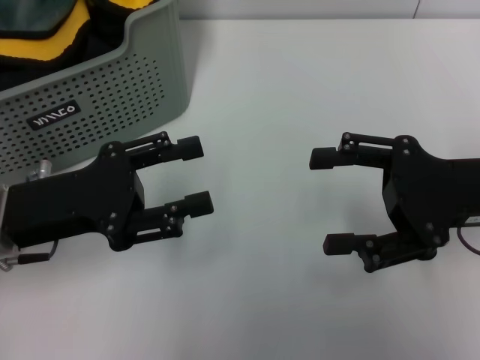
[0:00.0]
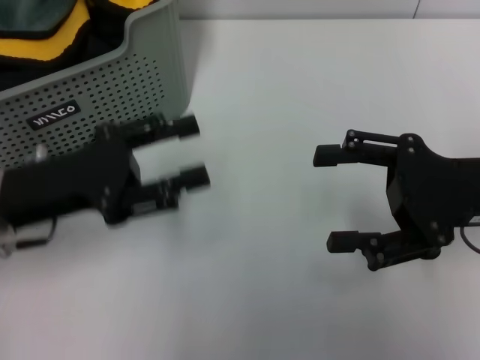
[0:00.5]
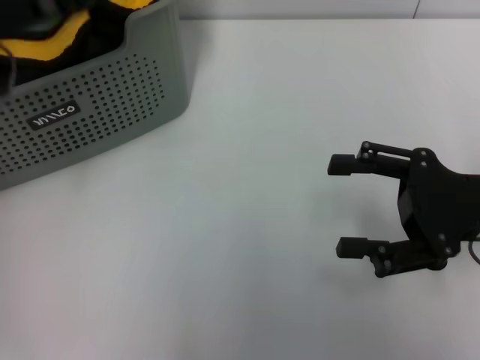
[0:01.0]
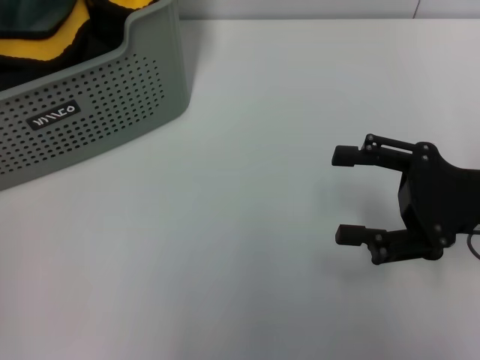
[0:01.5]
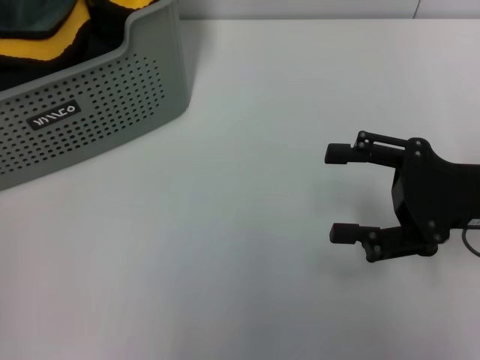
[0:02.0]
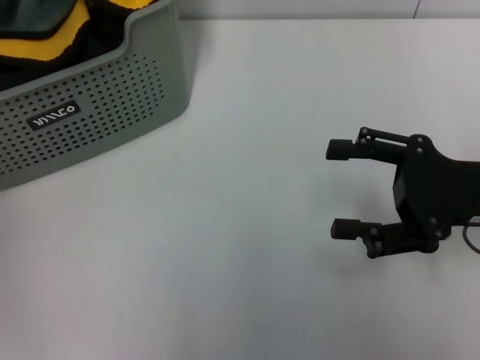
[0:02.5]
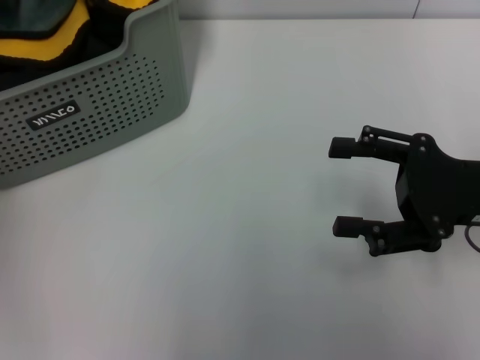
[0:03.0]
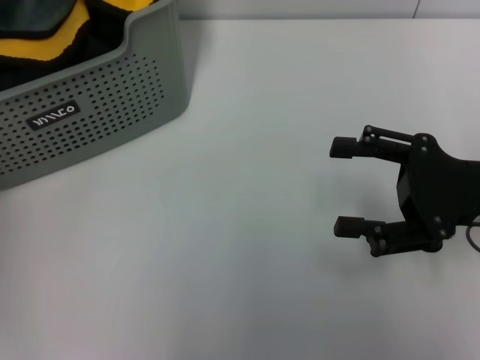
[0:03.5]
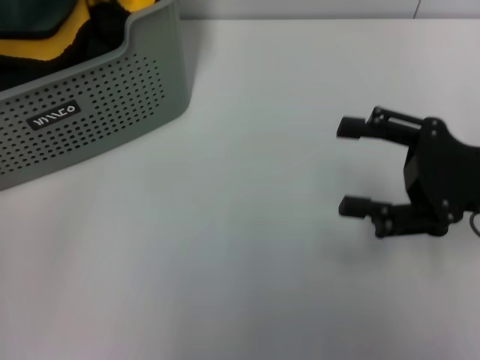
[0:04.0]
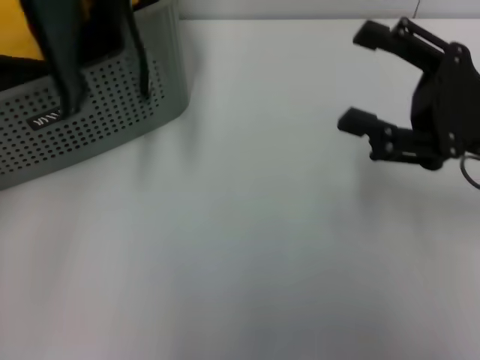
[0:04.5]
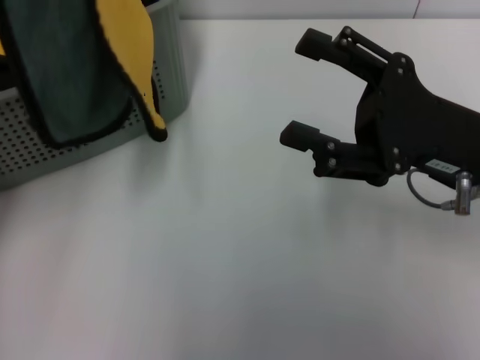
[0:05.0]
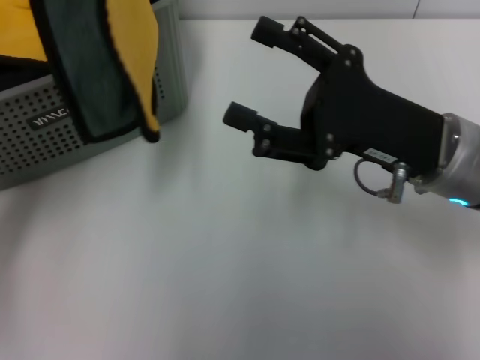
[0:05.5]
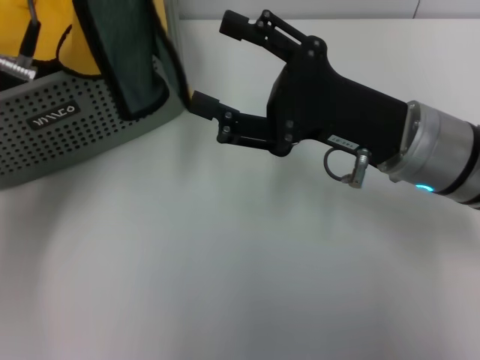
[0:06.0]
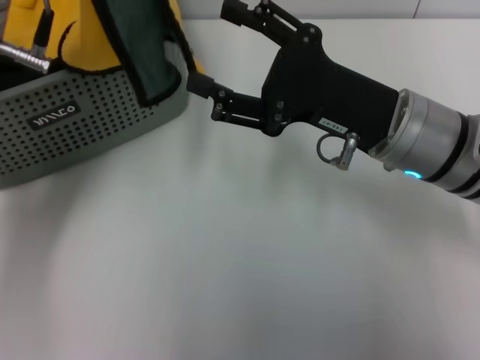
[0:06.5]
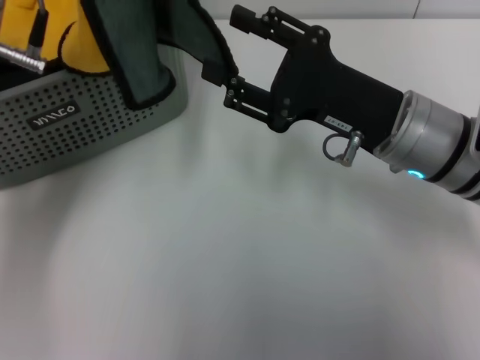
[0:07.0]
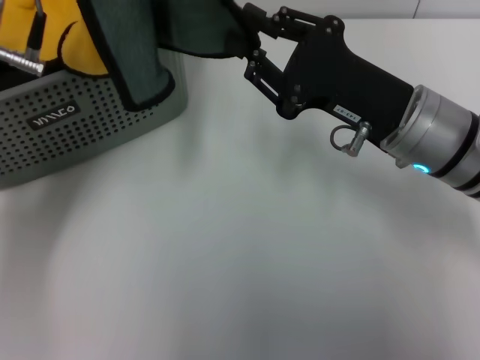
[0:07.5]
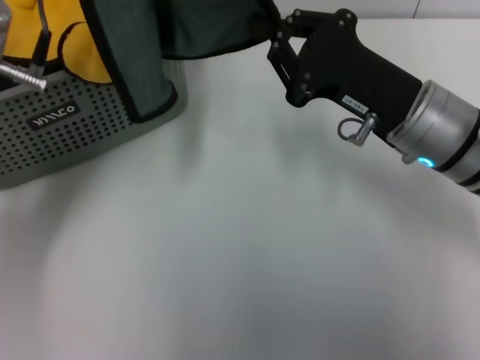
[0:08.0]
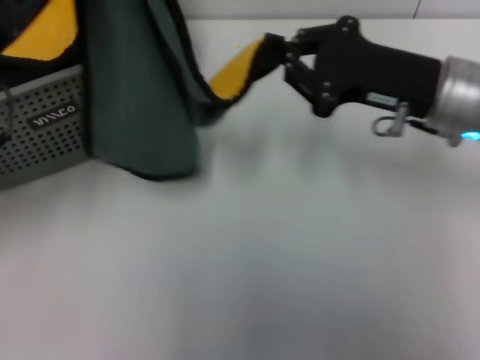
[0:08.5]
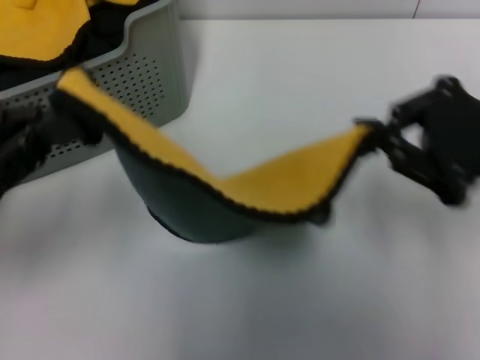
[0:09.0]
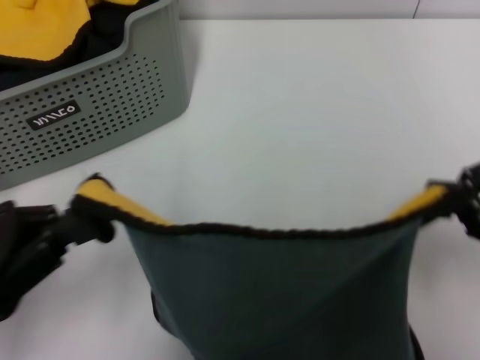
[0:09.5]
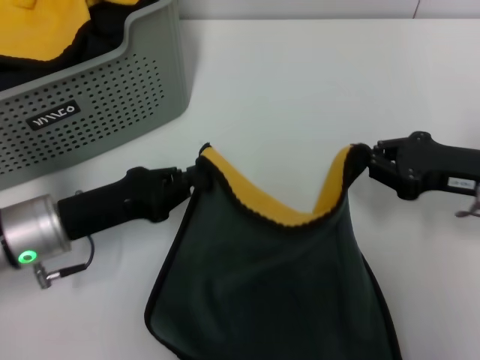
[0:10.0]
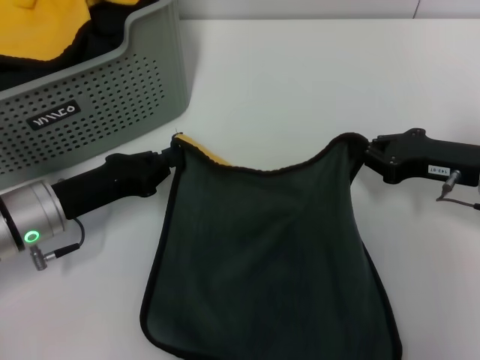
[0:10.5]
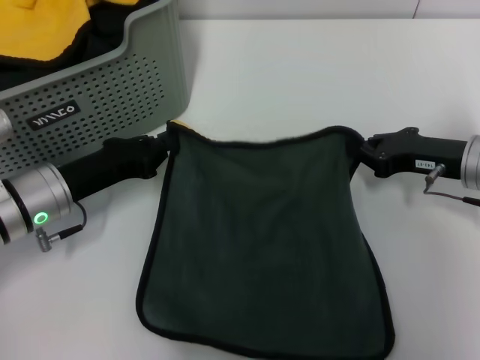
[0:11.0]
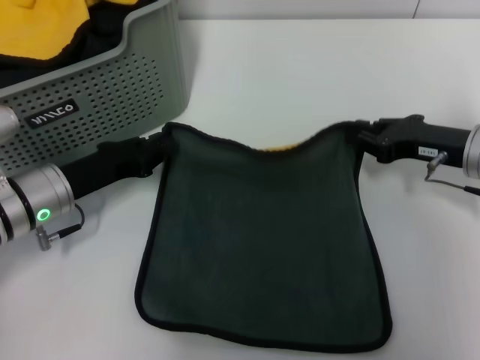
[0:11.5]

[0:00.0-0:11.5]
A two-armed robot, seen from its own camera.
Task of the whole recording: pick up the towel from the storage box and lay it flat on the table.
Step, 0:00.0 to 0:03.5: Pick up a towel with the left gripper.
Step, 0:04.5 to 0:07.5: Spread the towel flat with the left gripper.
0:00.0 to 0:02.0: The left gripper goes some 20 cm upward, forward and to the left.
0:04.0 to 0:06.0: The right gripper is displaced to the left by roughly 10 cm; the left gripper goes some 10 cm to the right.
0:06.0 to 0:07.5: The grippers stay close to where they were, moving slightly.
0:07.5 to 0:09.5: The right gripper is displaced to the right and backward by roughly 15 cm, and closes up. The left gripper travels backward, to the left and downward by some 20 cm.
0:09.5 to 0:11.5: Both grippers travel together forward and downward, roughly 15 cm.

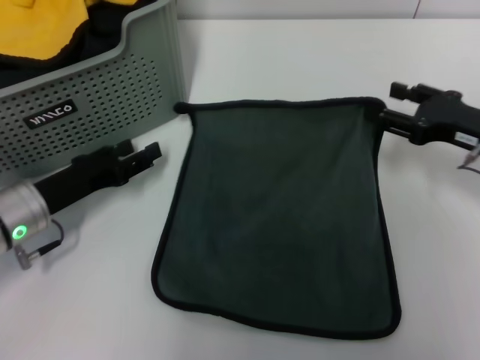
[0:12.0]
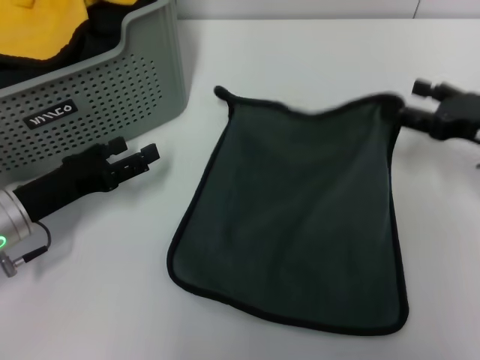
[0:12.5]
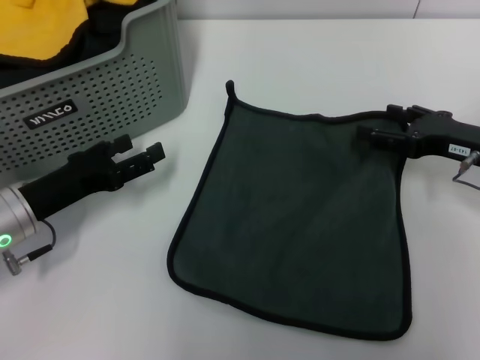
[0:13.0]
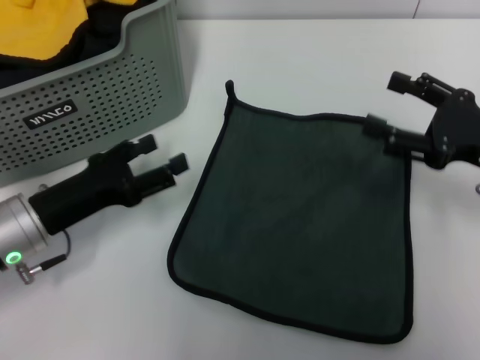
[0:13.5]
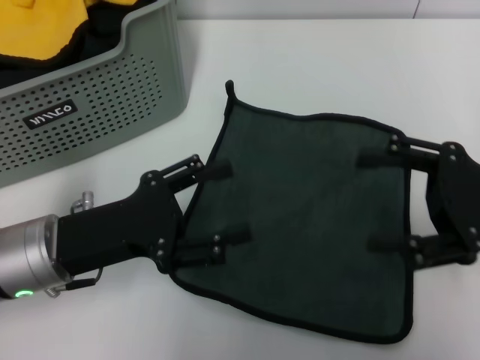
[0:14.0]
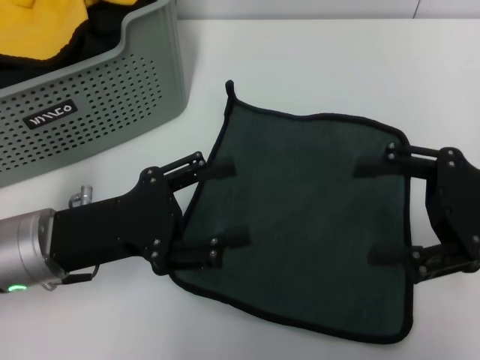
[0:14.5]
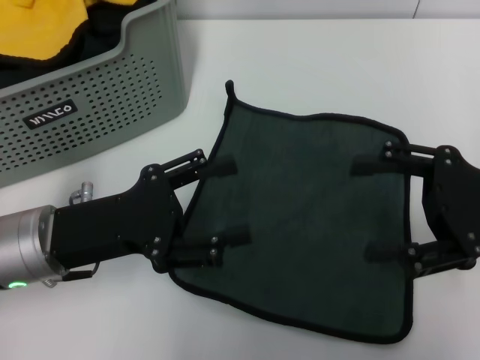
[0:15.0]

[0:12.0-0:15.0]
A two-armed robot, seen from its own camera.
Task of the whole recording: pick up the towel from the storage box and lay it flat on the table.
0:12.0 to 0:13.5: The right gripper opens up.
0:13.5 to 0:15.0: The left gripper ends up approximately 5 cm from where it was.

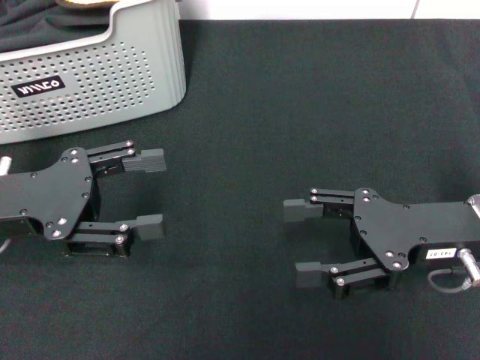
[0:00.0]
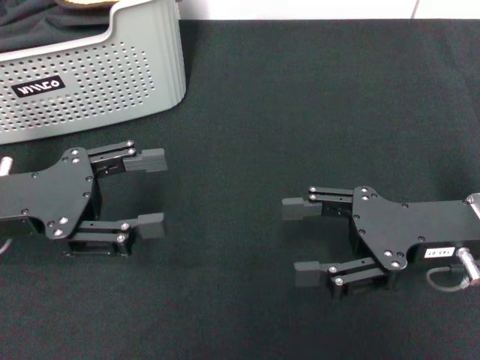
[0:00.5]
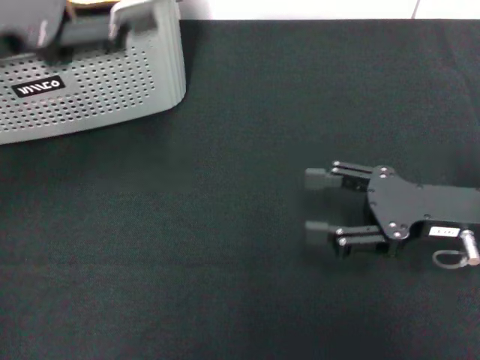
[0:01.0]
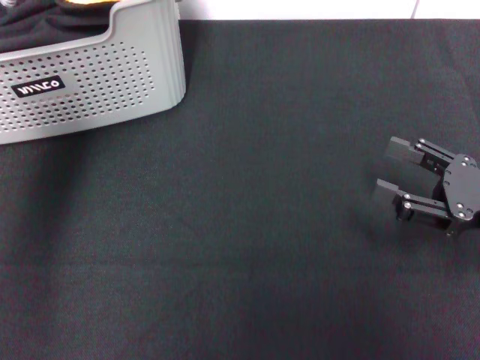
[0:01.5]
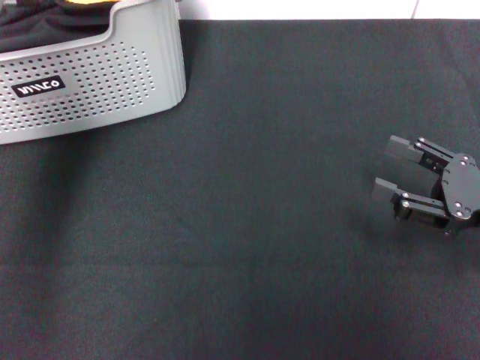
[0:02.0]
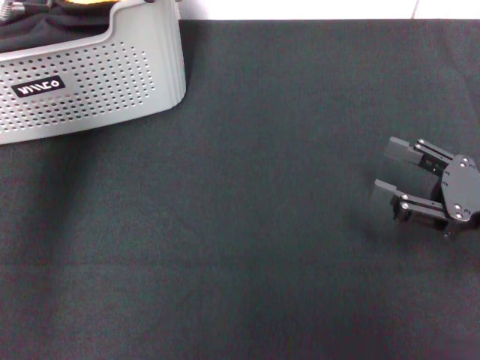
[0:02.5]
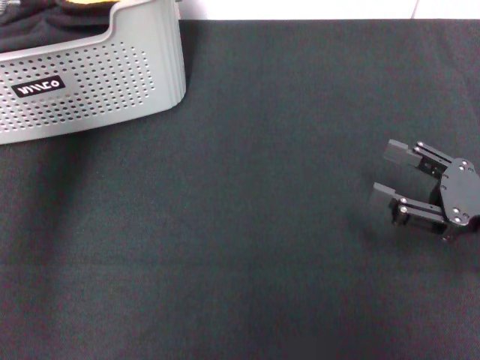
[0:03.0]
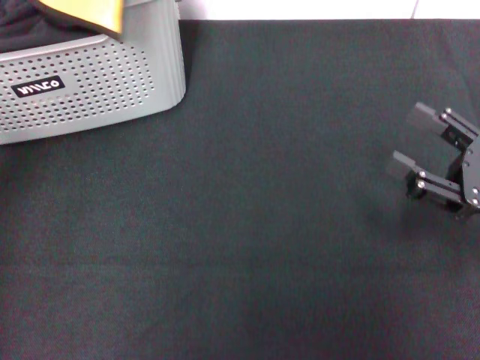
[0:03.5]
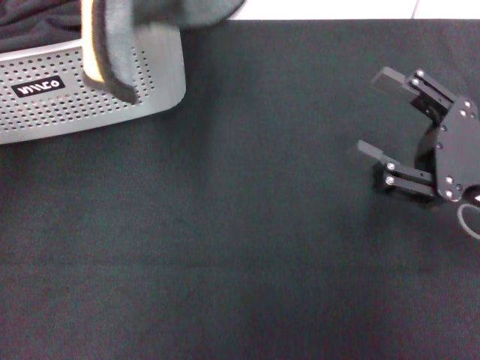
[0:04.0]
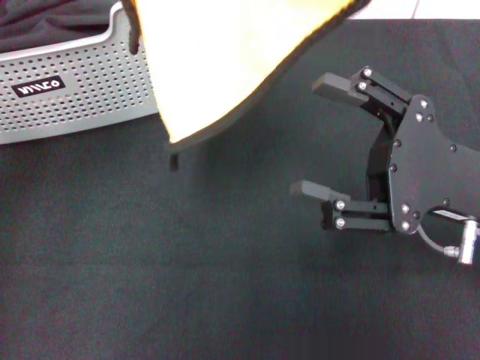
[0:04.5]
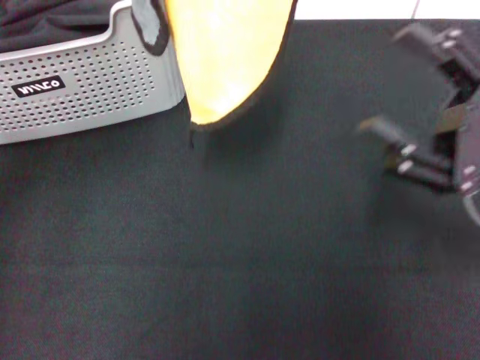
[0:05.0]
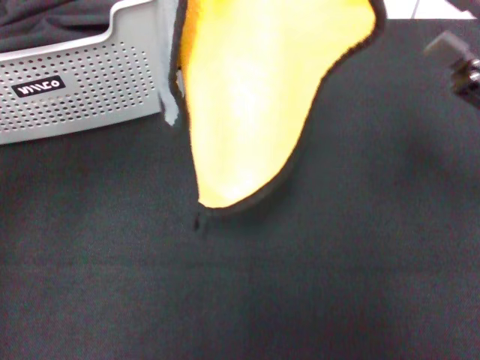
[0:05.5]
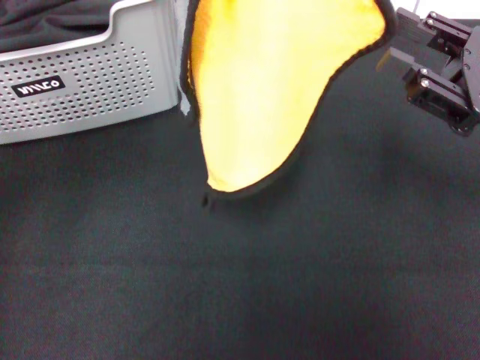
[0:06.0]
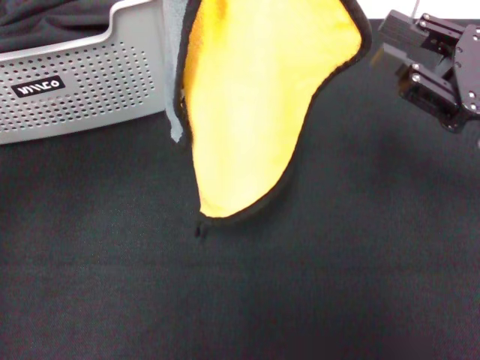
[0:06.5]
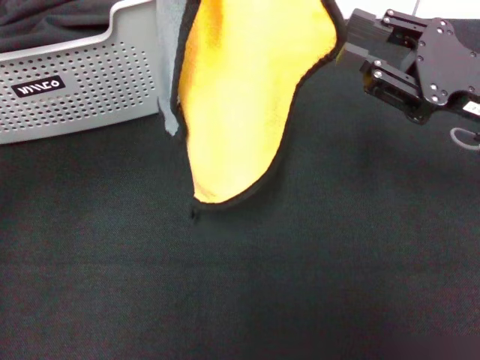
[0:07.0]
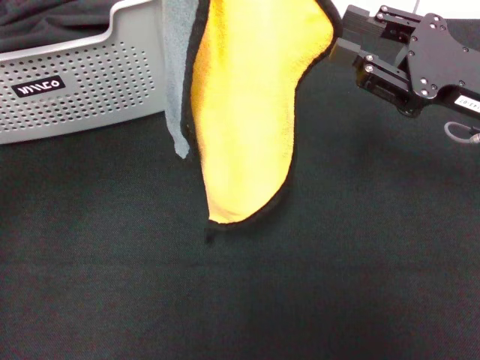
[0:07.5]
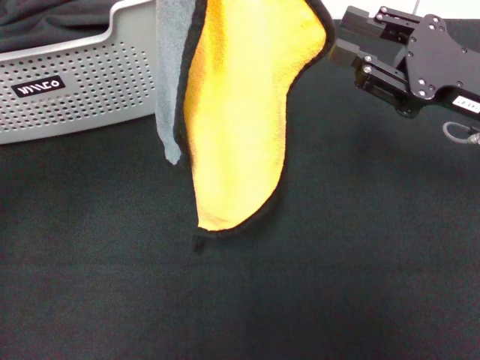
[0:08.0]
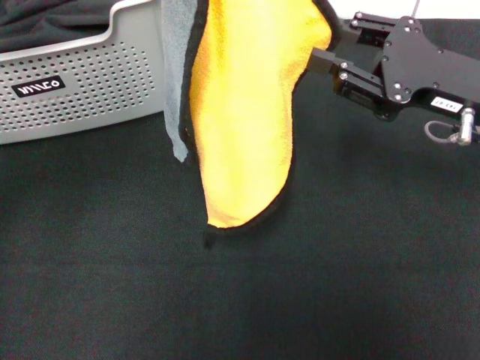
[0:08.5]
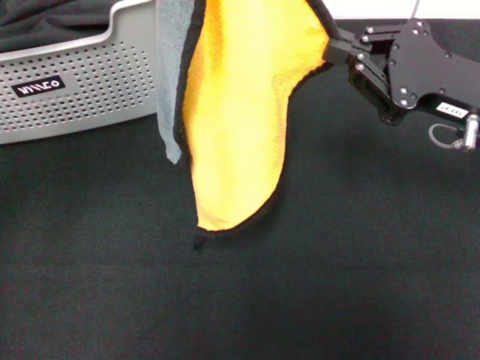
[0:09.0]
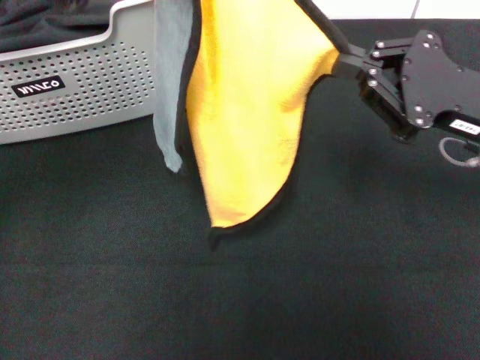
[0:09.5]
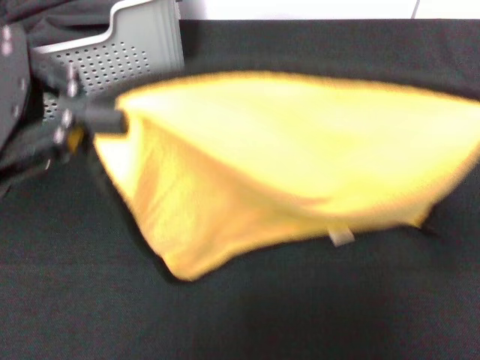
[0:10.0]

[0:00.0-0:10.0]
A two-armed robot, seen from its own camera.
Task of the whole recording: pick up the towel from the storage box and lay it flat on the black tablecloth.
Step, 0:00.0 to 0:02.5: Pick up a towel with the left gripper.
Step, 0:03.0 to 0:09.0: Spread the towel flat with the left gripper.
0:00.0 to 0:02.0: The left gripper travels forward, upward and to the right by approximately 20 cm. The right gripper travels to the right by approximately 5 cm.
0:02.0 to 0:04.0: The left gripper shifts approximately 15 cm backward, upward and to the left, and closes. The right gripper changes place by roughly 5 cm.
0:04.0 to 0:06.0: The right gripper travels to the left and back again, about 5 cm each way.
0:06.0 to 0:08.0: The grippers stay close to where they were, moving slightly.
0:08.0 to 0:10.0: The right gripper travels backward and to the right by some 10 cm, and closes. The left gripper changes place by some 5 cm.
